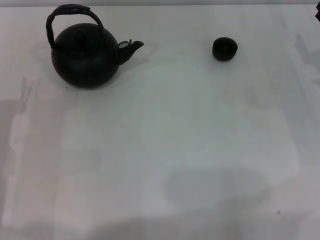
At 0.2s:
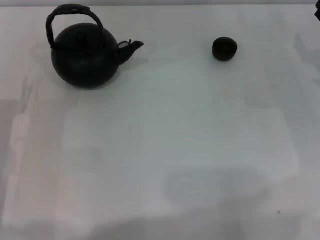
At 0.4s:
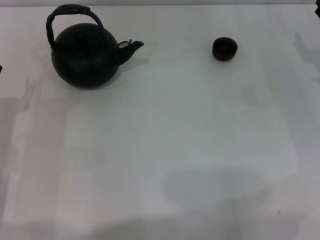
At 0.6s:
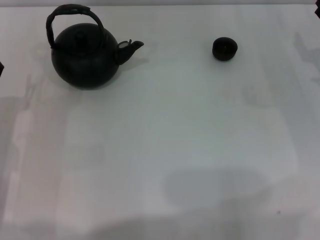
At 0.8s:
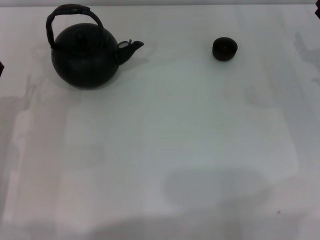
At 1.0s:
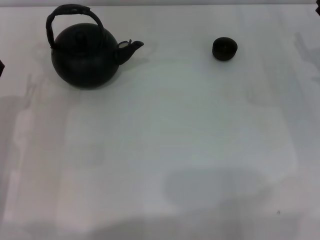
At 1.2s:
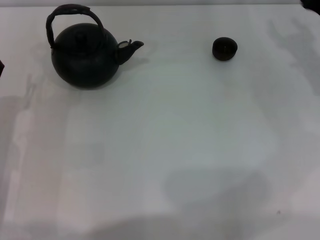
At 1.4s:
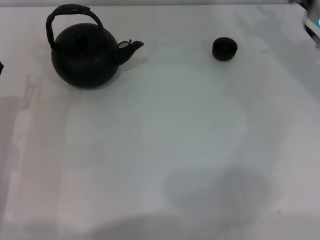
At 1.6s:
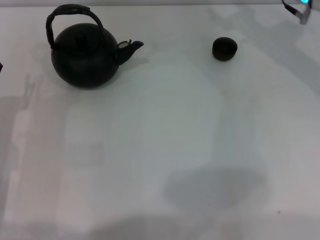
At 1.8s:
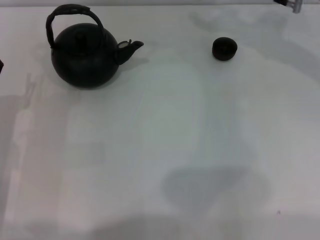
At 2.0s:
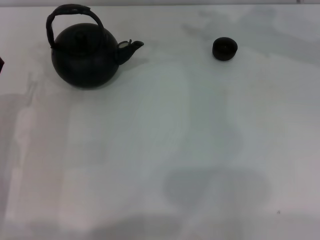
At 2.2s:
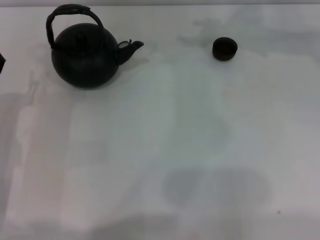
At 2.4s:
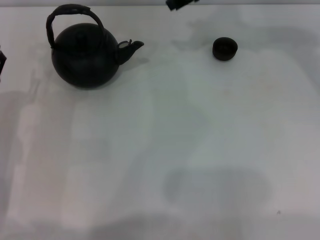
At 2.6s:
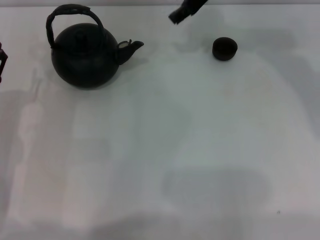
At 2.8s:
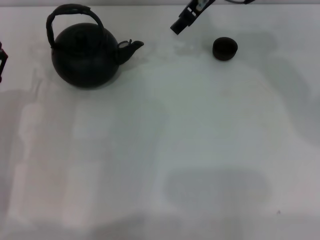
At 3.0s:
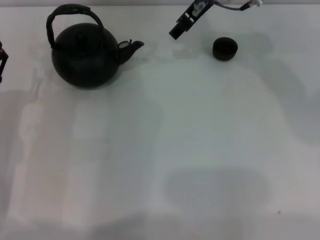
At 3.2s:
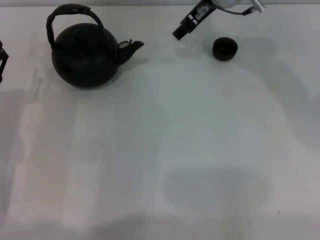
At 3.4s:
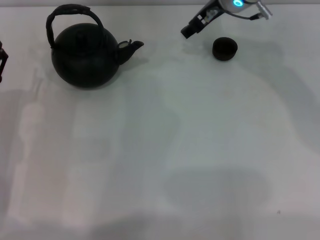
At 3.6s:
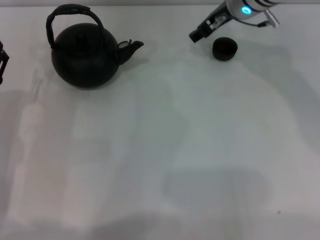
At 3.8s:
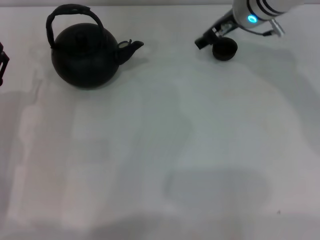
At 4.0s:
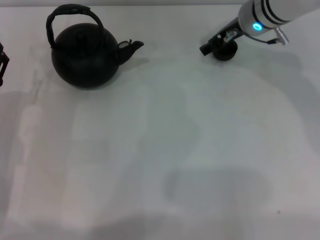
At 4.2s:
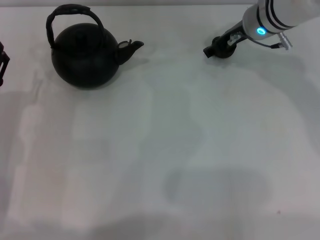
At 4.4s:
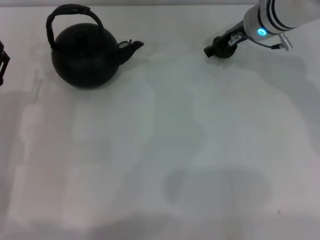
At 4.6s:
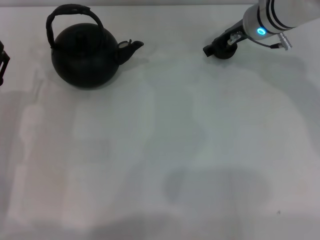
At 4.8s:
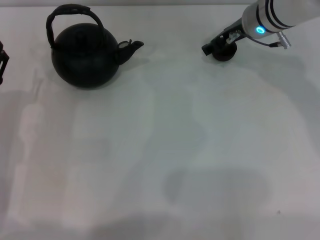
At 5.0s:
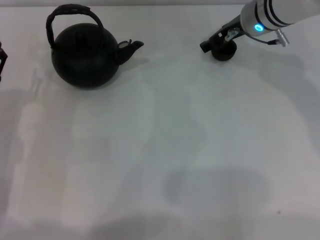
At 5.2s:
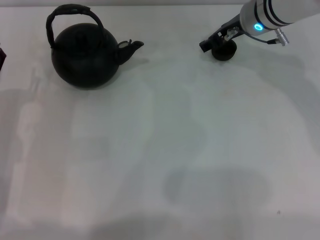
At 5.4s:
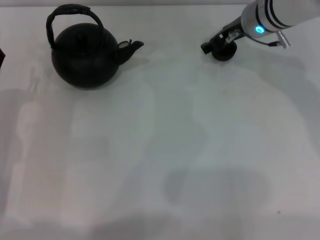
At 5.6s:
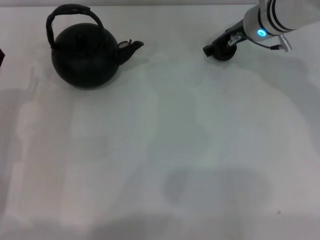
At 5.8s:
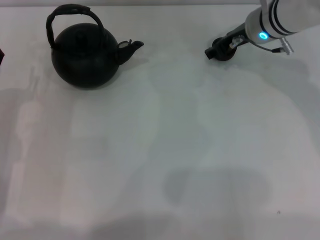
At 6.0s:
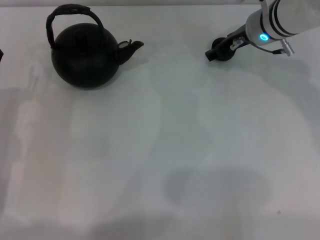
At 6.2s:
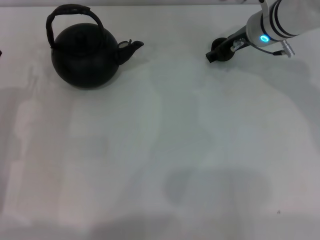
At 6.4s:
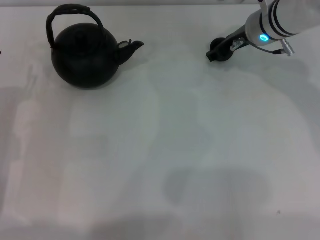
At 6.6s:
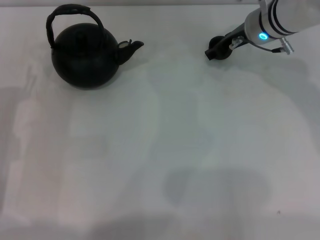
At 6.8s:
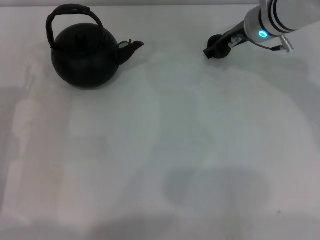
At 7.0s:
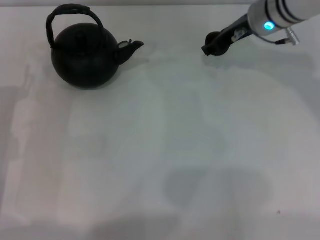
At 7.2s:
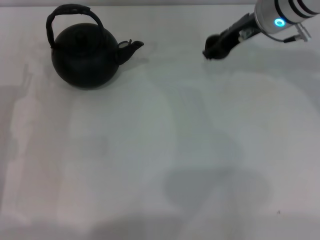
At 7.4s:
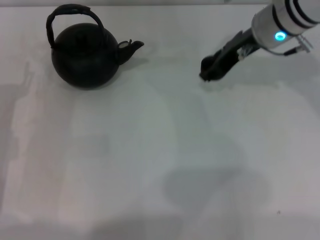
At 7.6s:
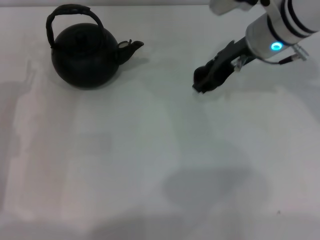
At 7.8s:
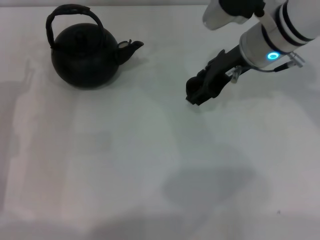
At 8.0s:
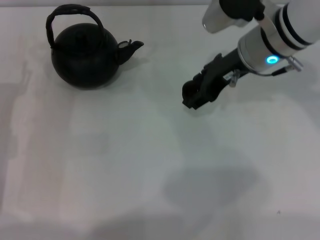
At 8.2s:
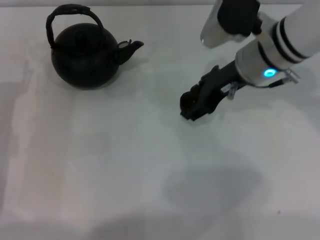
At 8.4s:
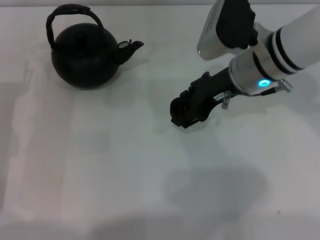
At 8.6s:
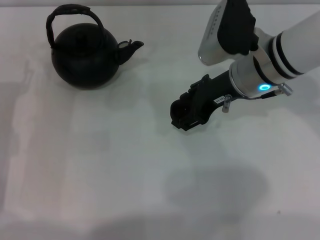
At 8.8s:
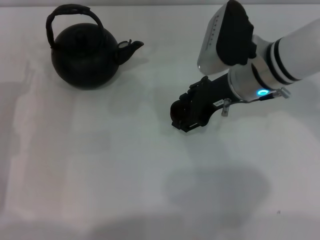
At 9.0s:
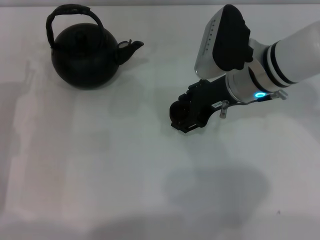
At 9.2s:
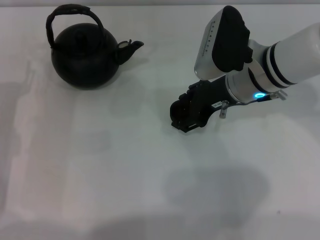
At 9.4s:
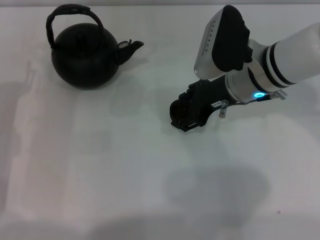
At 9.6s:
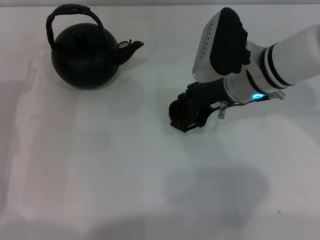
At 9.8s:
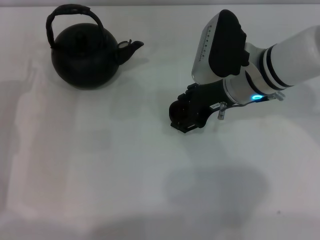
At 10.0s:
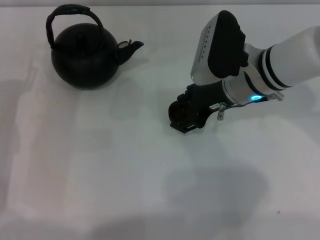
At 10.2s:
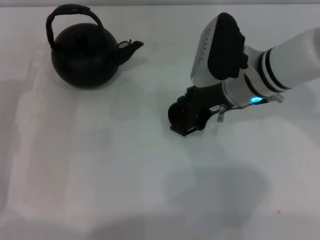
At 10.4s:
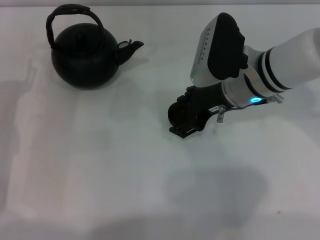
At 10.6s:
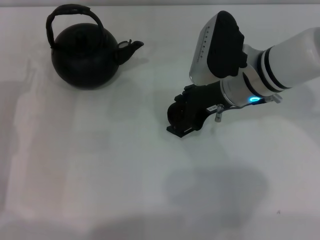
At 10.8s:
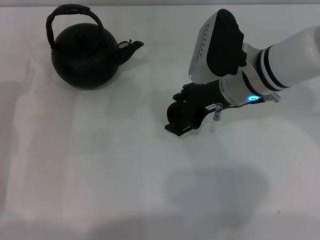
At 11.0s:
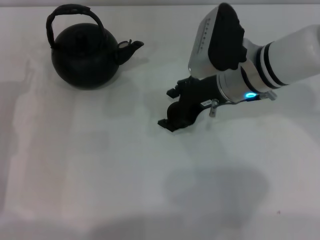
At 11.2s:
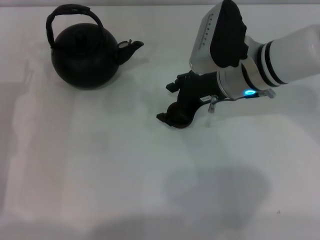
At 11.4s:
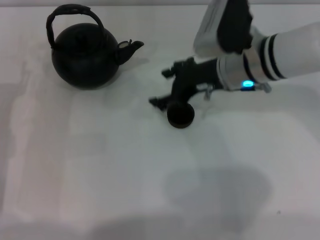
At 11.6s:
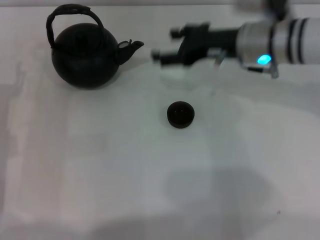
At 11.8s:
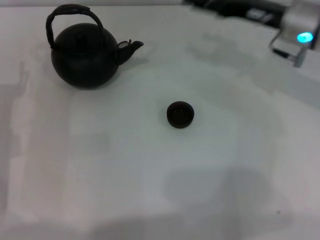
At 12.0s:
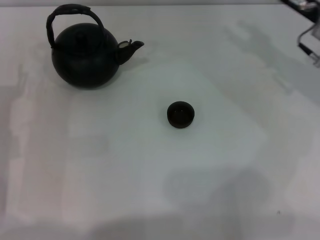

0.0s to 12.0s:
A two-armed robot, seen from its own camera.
Task of the whole recording: Grasp the handle of the teapot with one hand and pour tea into the teacup.
Step, 0.0s to 6.6s: Pick up the teacup with the right gripper.
Step, 7.0s to 11.4s: Place the teacup in the center of view with the right gripper.
1.6s to 3.0s: The right gripper moves to the left, approximately 15 cm.
3.0s to 4.4s: The right gripper shifts roughly 10 cm to the right and downward.
4.4s to 6.0s: Both grippers stay put.
6.0s to 7.6s: The right gripper changes place by about 5 cm.
7.6s to 9.0s: The right gripper ends up about 5 cm from where it was.
9.0s to 10.4s: Neither gripper changes place.
10.4s to 12.0s: The right gripper is displaced to the right by roughly 15 cm.

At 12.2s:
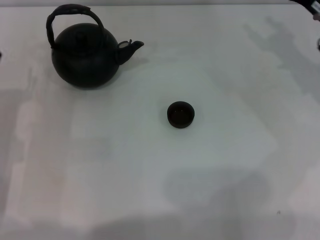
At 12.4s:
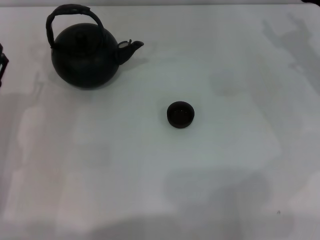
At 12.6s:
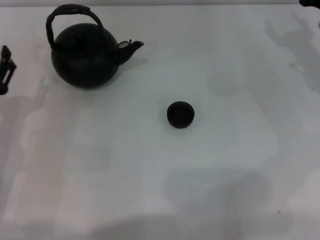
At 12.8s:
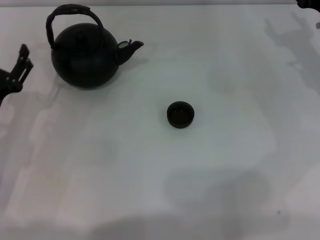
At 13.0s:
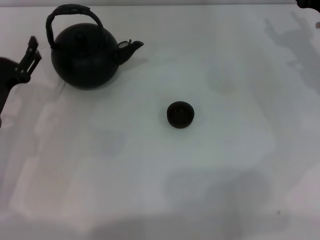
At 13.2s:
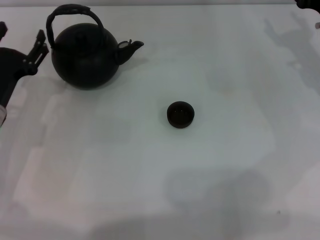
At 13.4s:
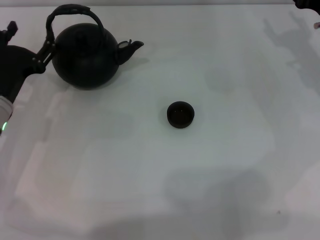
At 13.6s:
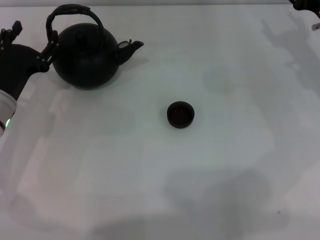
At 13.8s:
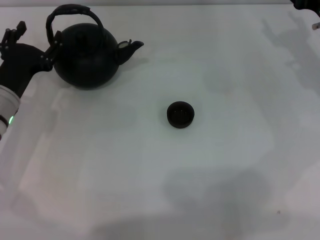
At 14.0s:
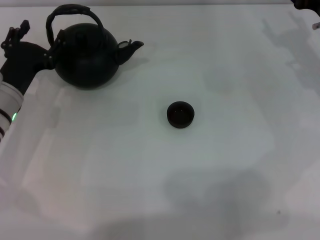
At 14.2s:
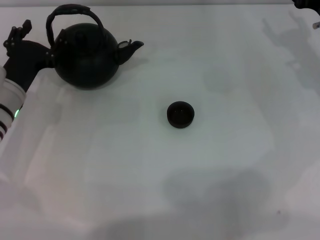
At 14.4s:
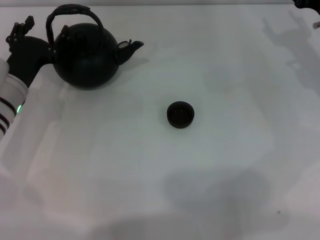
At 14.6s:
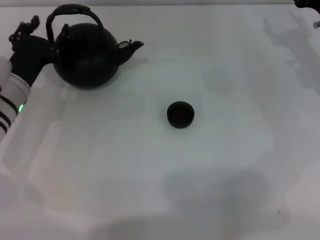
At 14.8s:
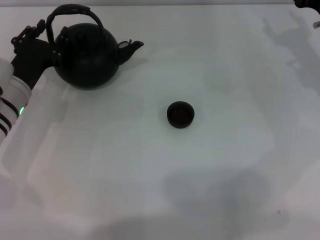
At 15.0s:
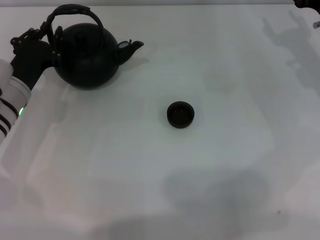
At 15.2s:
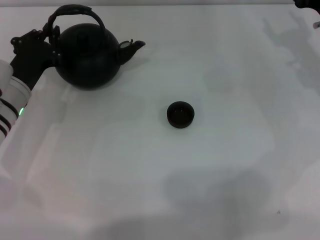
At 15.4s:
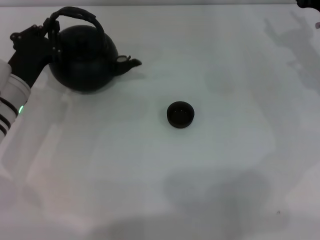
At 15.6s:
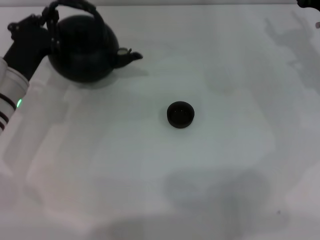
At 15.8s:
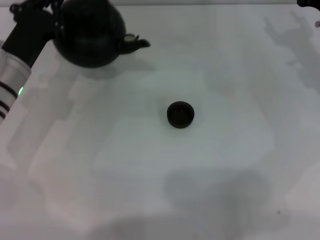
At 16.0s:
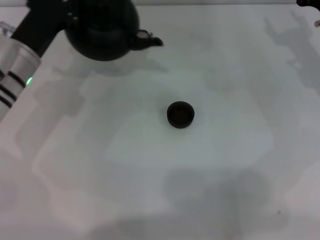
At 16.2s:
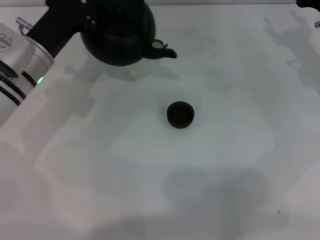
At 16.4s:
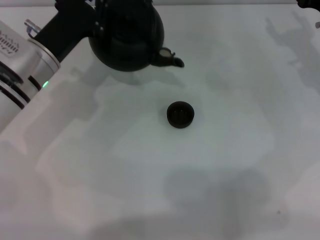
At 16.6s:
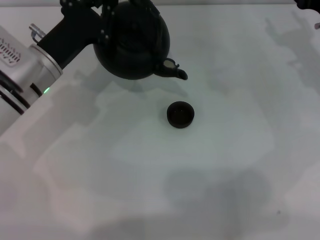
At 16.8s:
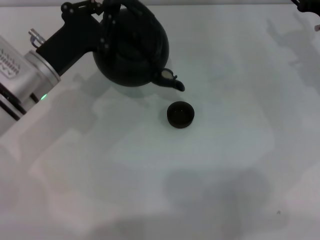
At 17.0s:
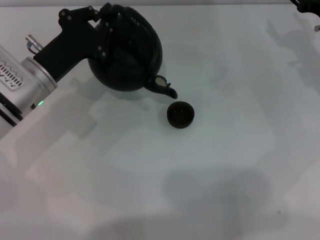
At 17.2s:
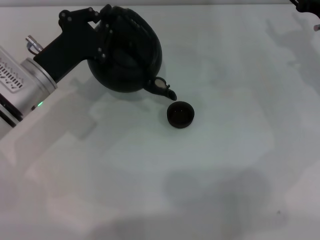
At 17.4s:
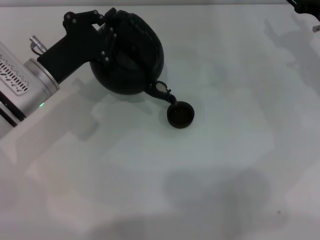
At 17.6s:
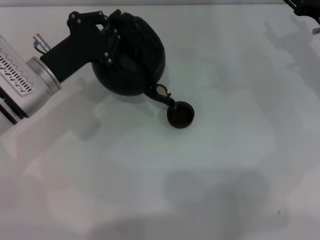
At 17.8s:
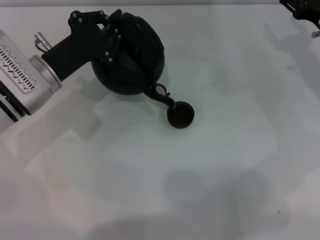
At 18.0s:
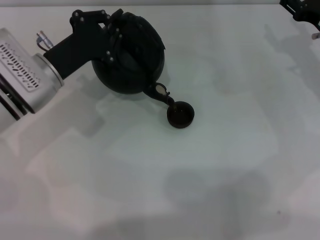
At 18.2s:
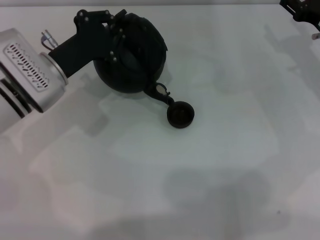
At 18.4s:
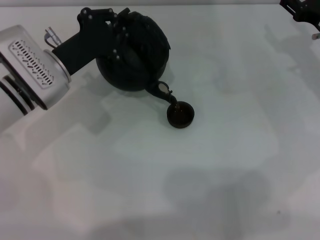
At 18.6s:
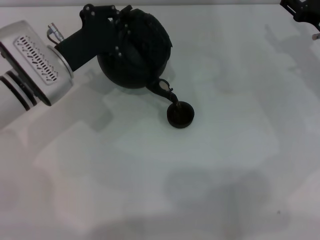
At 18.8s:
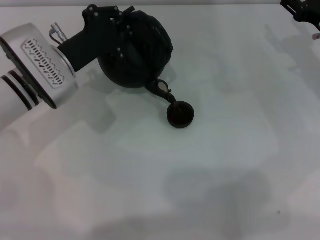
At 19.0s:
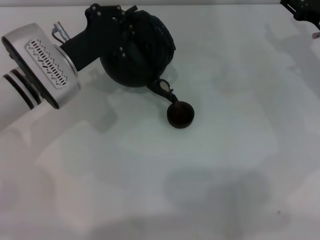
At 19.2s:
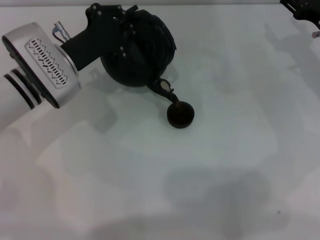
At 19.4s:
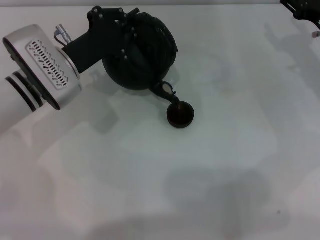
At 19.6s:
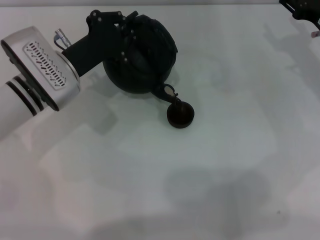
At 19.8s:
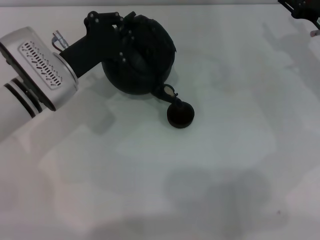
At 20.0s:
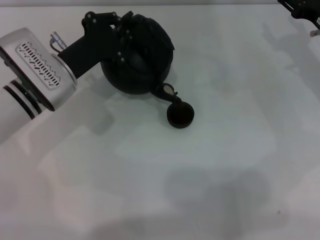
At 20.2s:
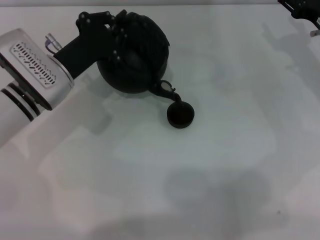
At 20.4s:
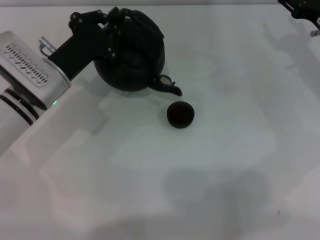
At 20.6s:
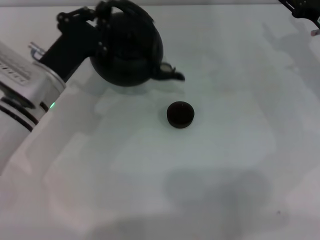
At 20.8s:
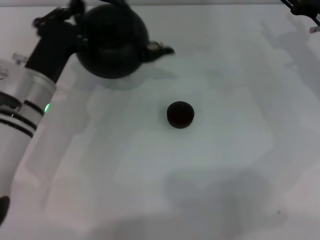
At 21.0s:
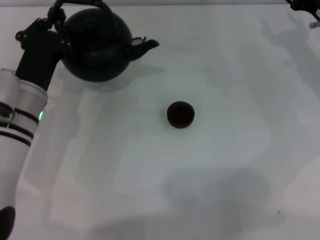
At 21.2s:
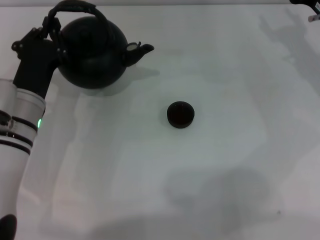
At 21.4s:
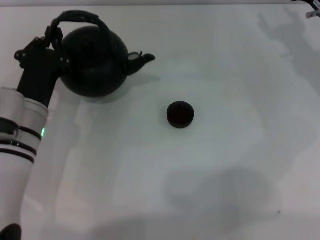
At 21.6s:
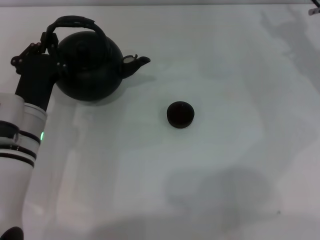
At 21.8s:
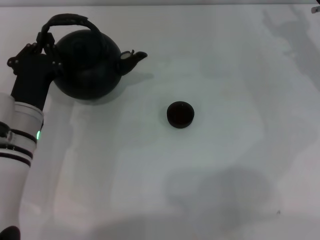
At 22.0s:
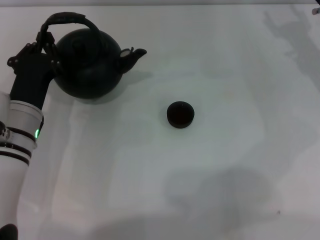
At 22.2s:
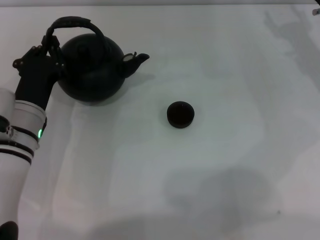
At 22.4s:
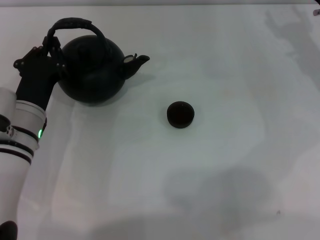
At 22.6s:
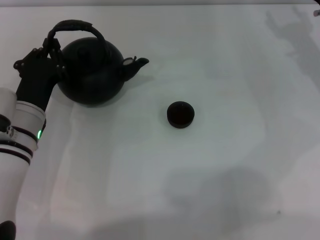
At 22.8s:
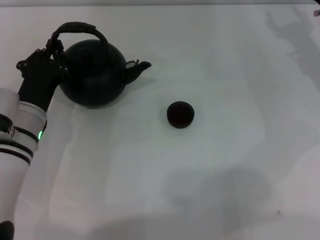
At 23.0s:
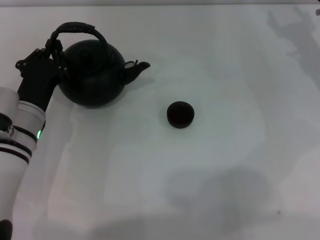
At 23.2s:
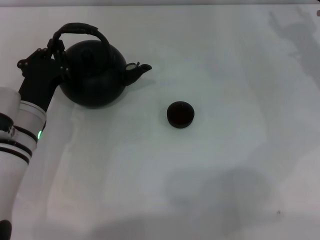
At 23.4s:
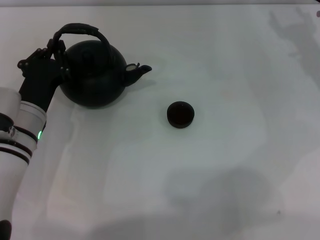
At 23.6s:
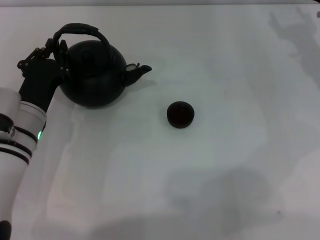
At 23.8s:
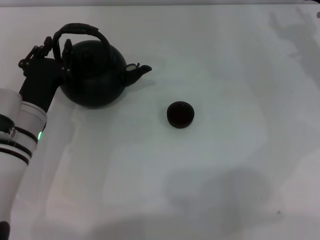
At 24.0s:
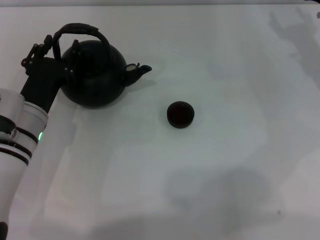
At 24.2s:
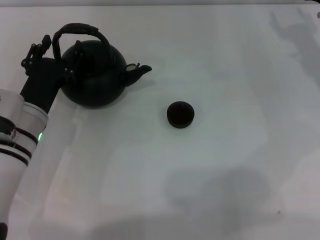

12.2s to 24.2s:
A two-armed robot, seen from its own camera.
Task of the whole recording: Grasp the handle of the teapot with one hand and pour tea into the teacup.
Step, 12.2s to 16.0s: Pick up the teapot with the left gripper.
Step, 16.2s to 20.8s: Pour tea into the teacup with the left gripper.
12.2s to 13.8s: The left gripper goes roughly 5 cm forward.
13.8s to 15.2s: The left gripper closes its fingers.
15.2s to 16.6s: The left gripper changes place by about 5 cm, and closes up.
16.6s to 18.2s: The grippers move only a little.
18.2s to 19.8s: The grippers make only small movements.
19.8s to 21.2s: The left gripper moves backward, some 5 cm.
21.2s to 22.6s: The grippers move only a little.
22.6s to 24.2s: The left gripper opens up.
